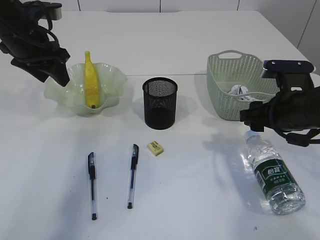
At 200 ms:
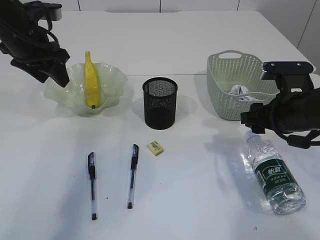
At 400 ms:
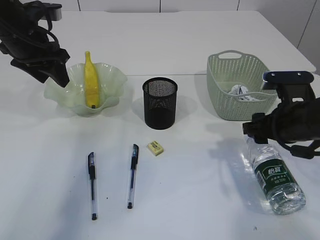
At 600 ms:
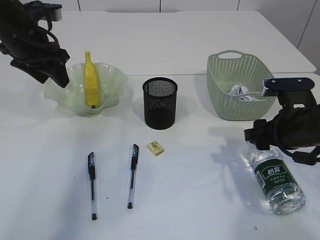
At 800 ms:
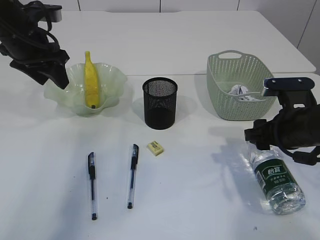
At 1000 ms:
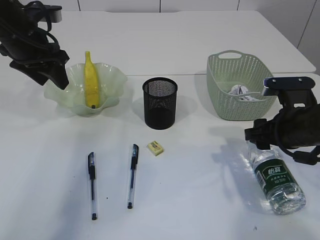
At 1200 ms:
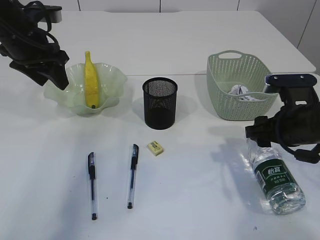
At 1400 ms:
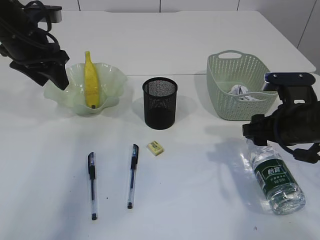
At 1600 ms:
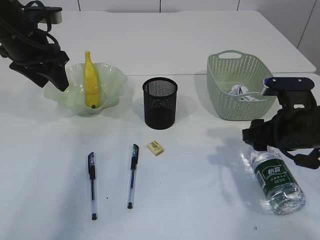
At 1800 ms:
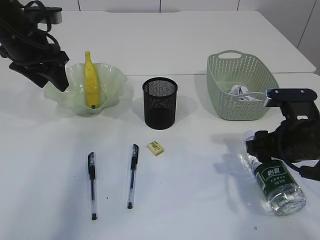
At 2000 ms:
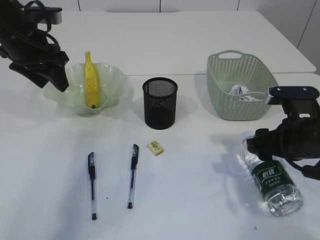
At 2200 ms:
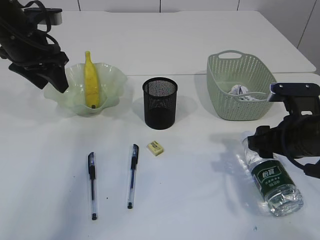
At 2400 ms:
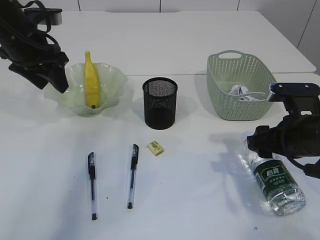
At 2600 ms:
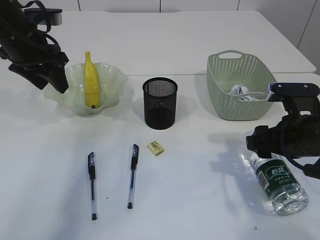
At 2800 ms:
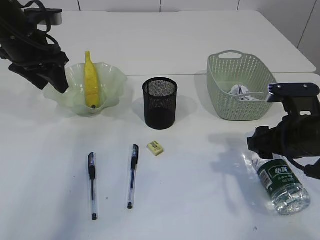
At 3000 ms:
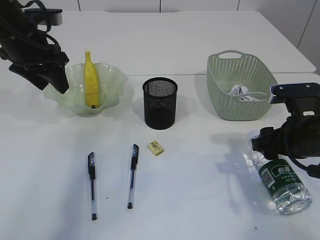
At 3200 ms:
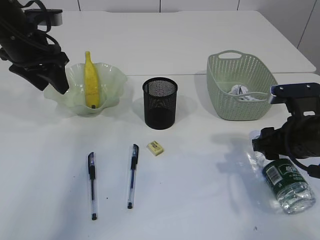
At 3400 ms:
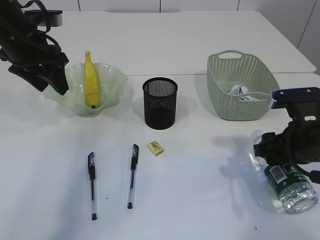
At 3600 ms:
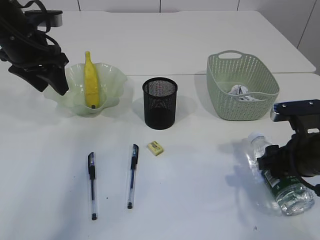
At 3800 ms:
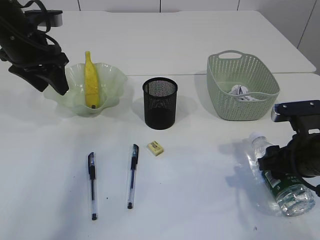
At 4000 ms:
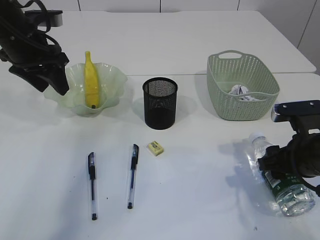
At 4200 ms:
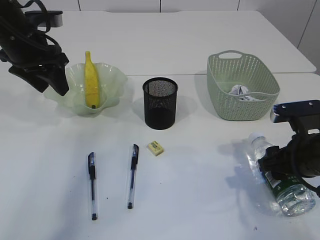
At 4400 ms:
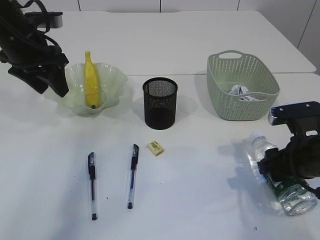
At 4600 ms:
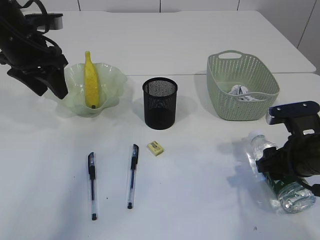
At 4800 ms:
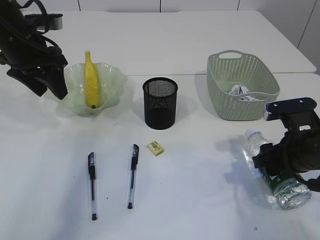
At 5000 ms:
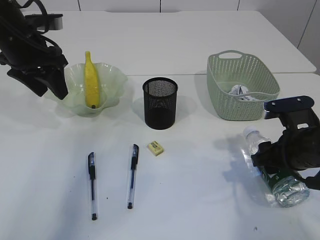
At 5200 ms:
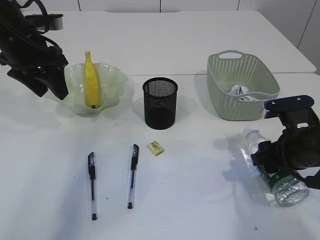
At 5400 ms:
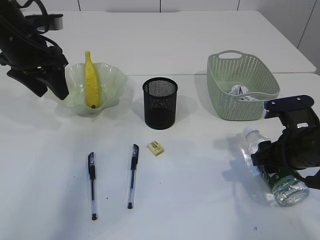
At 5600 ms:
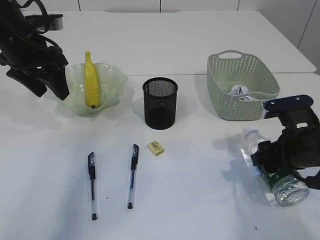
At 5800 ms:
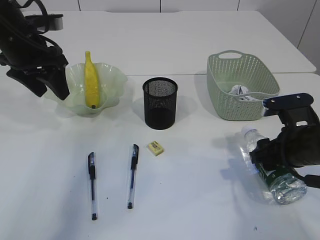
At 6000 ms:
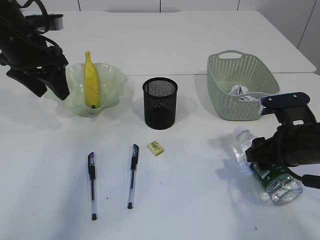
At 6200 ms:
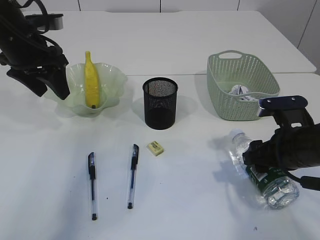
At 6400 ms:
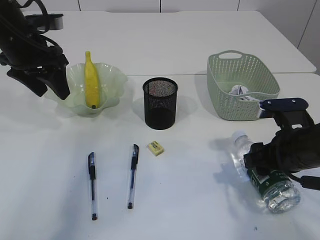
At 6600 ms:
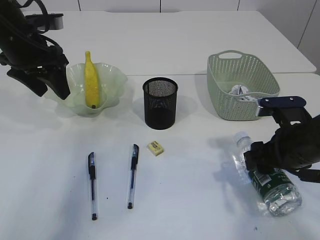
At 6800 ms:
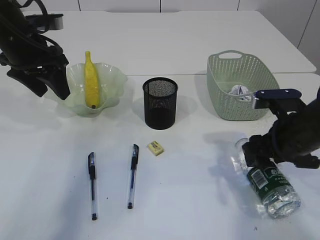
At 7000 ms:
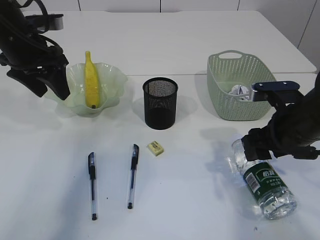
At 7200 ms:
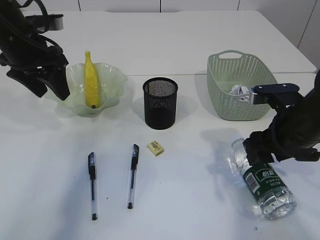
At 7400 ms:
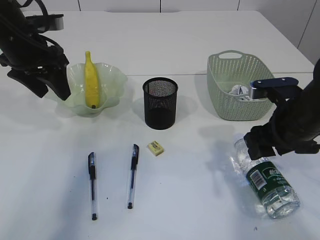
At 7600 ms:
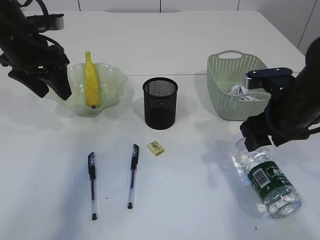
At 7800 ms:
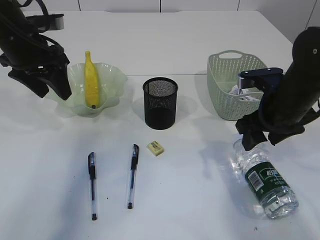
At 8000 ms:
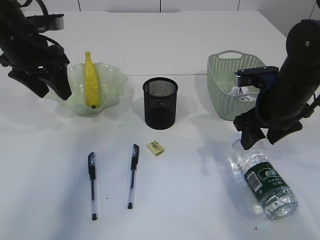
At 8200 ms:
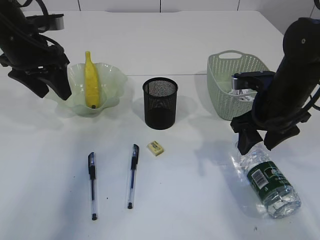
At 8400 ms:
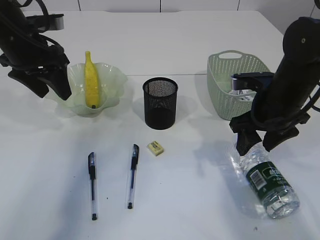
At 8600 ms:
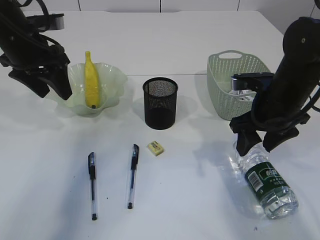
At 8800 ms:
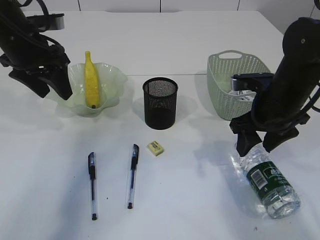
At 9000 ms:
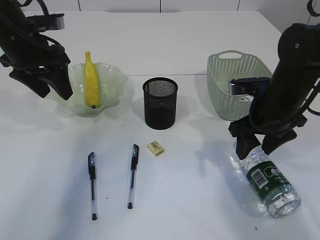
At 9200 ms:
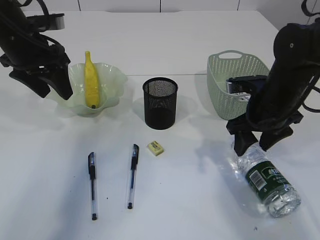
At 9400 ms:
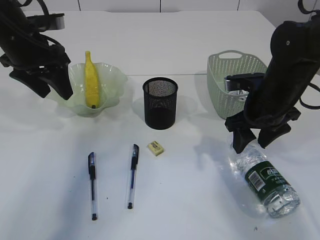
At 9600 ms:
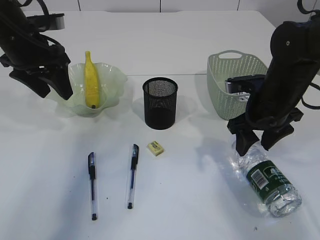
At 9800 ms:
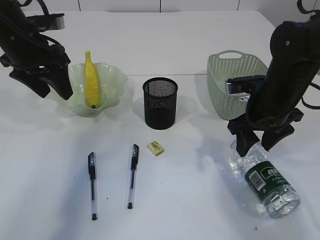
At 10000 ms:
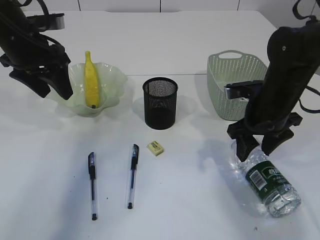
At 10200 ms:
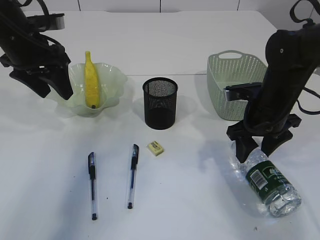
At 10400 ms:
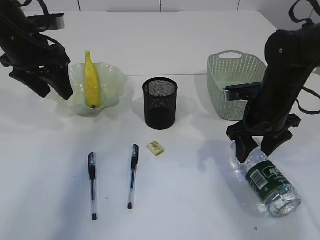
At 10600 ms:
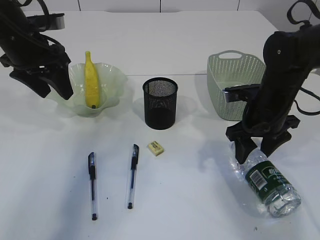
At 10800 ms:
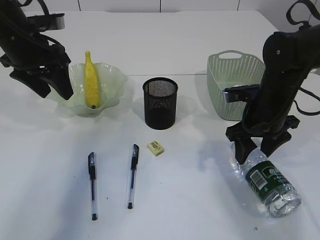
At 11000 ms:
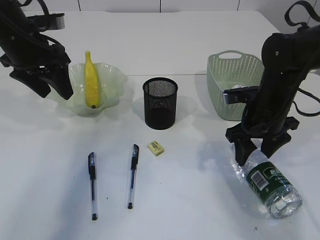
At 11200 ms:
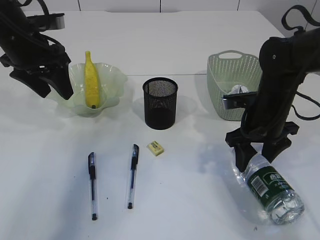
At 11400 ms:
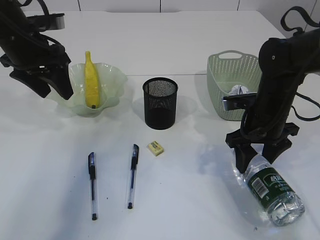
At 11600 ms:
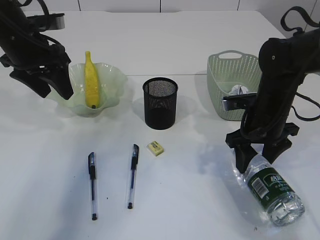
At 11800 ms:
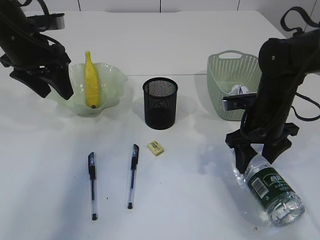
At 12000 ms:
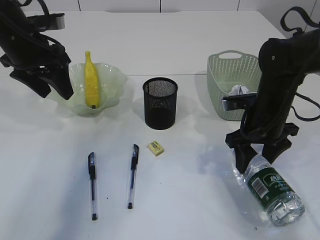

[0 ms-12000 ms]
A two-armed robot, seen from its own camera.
0 ms to 3000 ms: The grippers stay close to where they were, moving slightly.
3000 ms to 6000 ms: The grippers stay close to where they were, moving slightly.
6000 ms to 7600 ms: The right gripper shifts roughly 5 cm upward.
7600 ms to 10400 ms: The grippers make only small movements.
10400 ms to 12000 ms: There are only small adjustments of the grippers.

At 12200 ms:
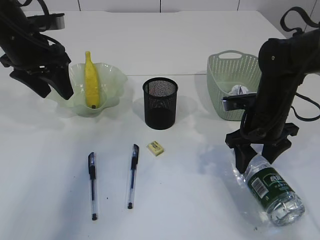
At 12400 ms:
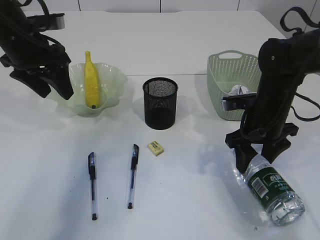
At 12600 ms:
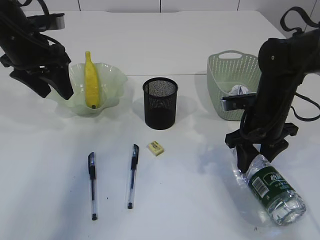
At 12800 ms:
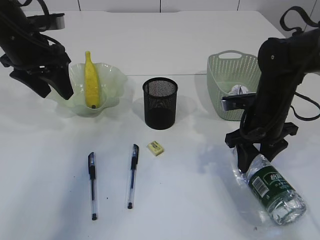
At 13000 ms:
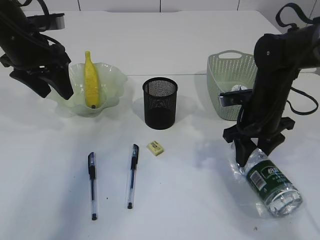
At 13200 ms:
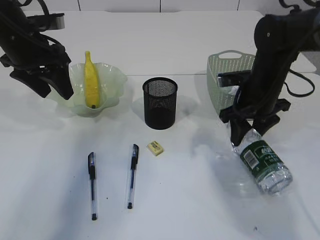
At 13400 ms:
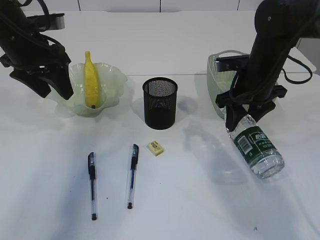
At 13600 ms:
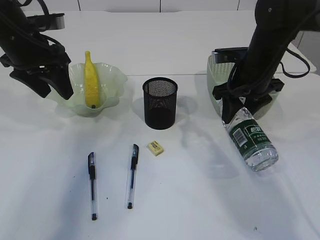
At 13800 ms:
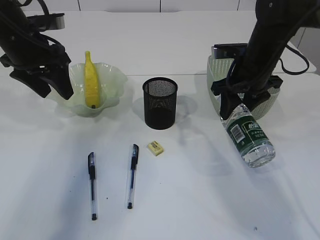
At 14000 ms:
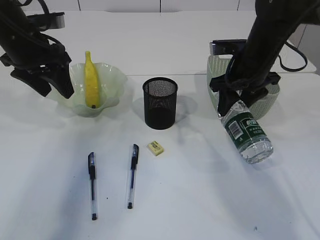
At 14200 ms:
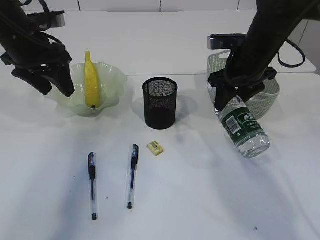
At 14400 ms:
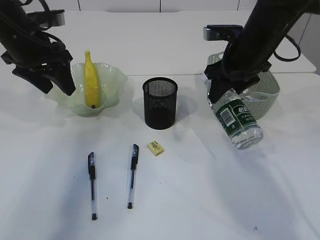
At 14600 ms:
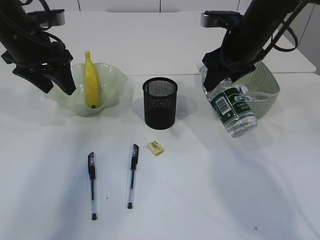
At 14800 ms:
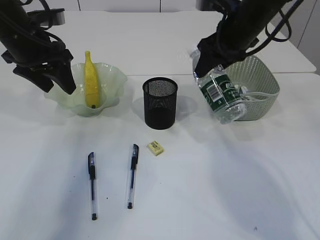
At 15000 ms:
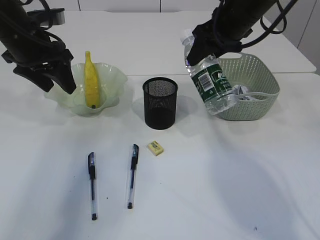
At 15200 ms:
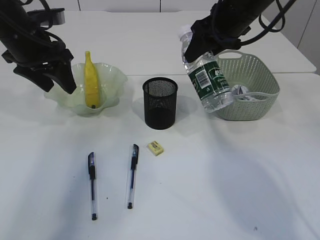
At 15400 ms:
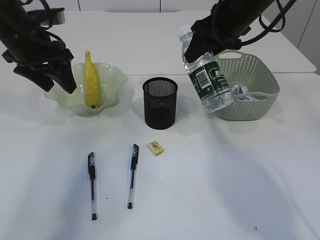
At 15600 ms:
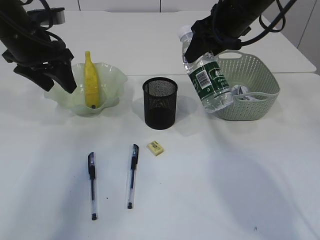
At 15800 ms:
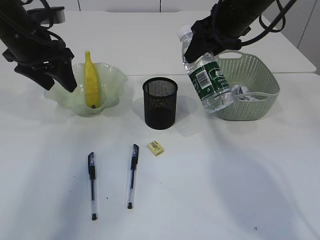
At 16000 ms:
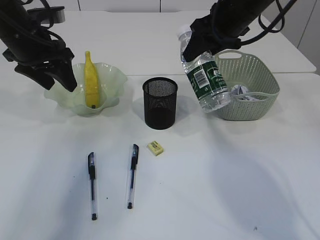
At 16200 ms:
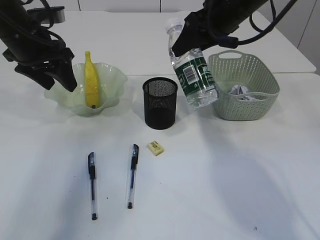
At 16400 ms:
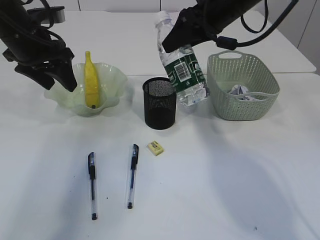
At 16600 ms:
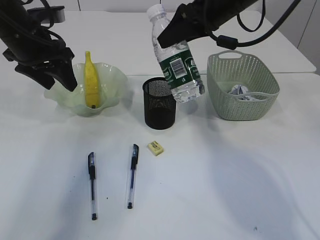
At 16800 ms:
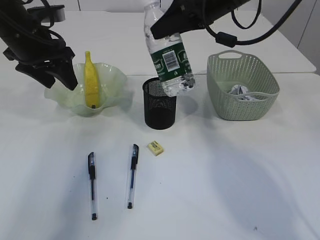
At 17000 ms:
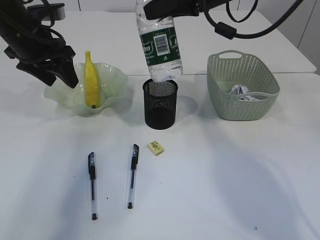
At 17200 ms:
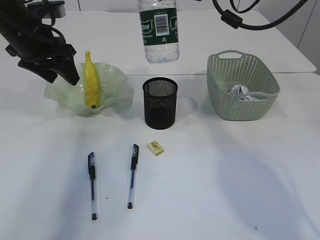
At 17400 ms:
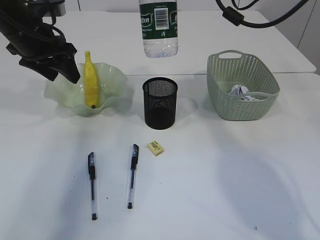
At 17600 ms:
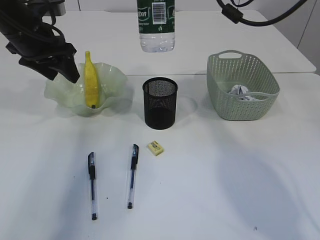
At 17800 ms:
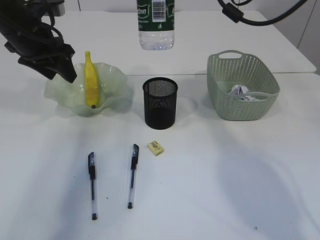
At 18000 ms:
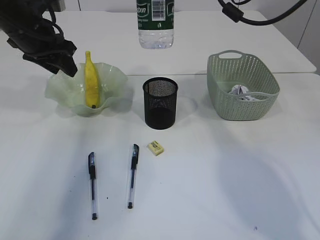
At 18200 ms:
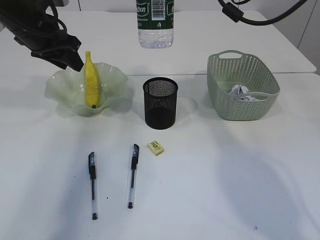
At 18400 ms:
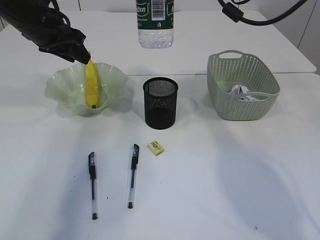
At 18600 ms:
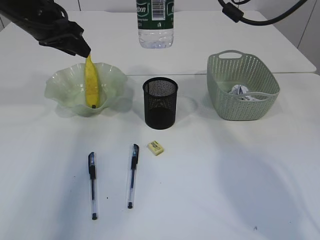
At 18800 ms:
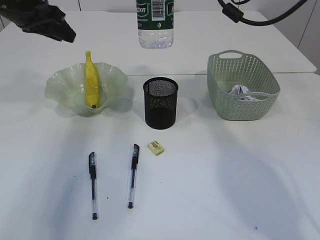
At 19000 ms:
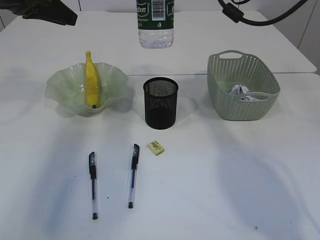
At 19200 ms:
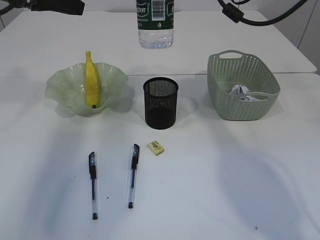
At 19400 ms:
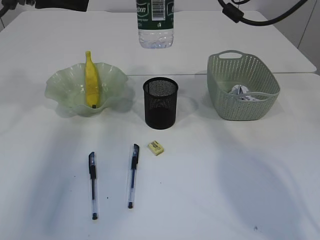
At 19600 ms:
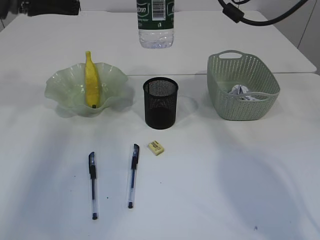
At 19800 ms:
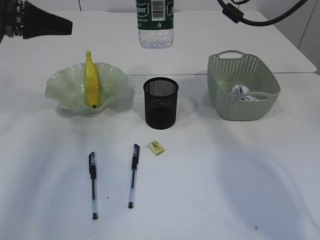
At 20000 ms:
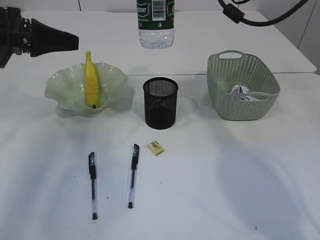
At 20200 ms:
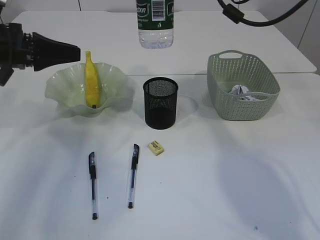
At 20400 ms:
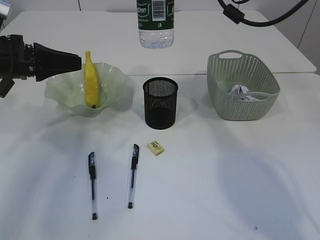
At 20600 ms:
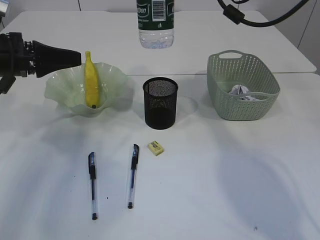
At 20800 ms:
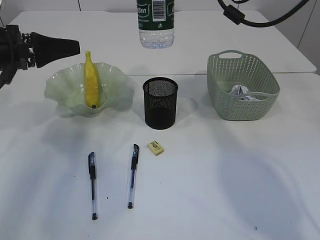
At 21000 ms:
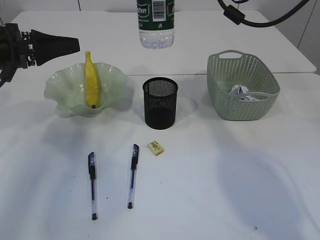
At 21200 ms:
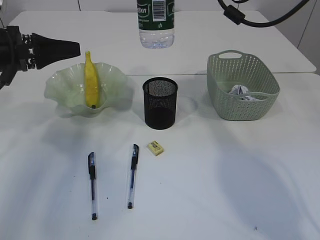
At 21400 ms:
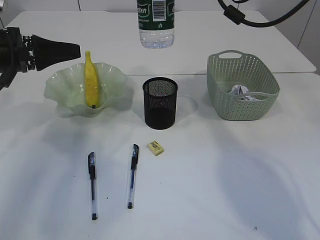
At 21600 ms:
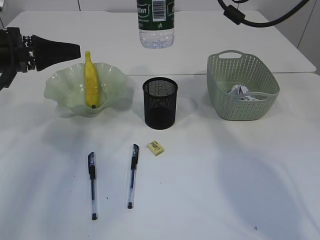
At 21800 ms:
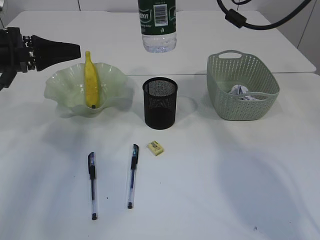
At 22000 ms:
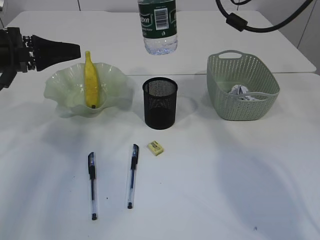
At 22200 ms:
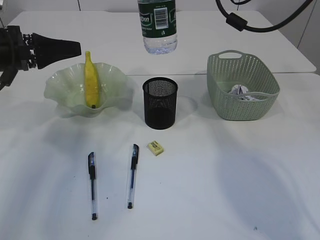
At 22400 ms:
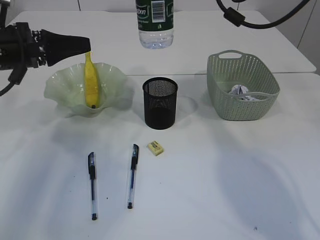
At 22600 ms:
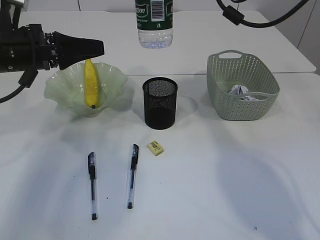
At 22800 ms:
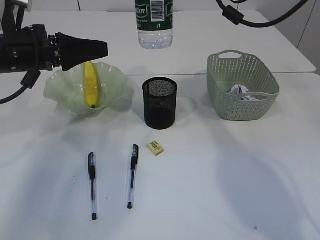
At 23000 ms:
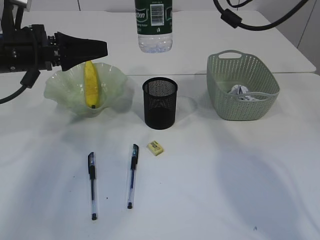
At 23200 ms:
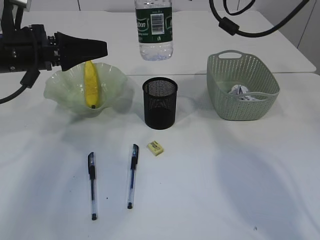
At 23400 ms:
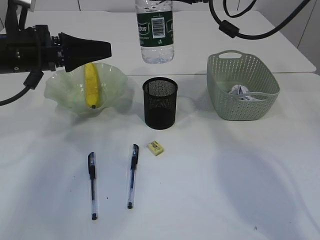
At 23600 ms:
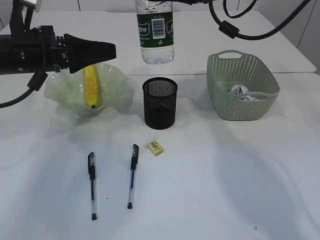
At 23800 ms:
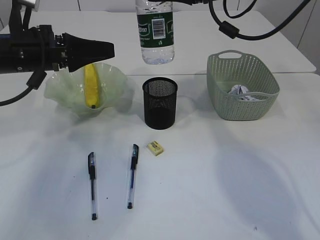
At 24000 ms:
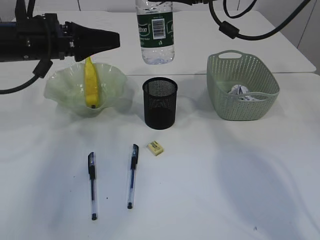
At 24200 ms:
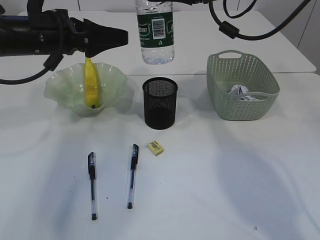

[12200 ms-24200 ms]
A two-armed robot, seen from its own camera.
Step, 12200 ms to 14200 ms: Pick up the bottle with the right arm.
12200 ms to 13800 ms: The right gripper heads upward and forward, covering approximately 10 cm.
13800 ms to 15200 ms: The right gripper moves upward, some 10 cm.
18200 ms to 19800 ms: The left gripper moves to the left, roughly 5 cm, and travels upward and back again, roughly 10 cm each way.
19800 ms to 21200 ms: The left gripper is displaced downward by about 5 cm.
21200 ms to 22600 ms: The grippers make only small movements.
22600 ms to 24200 ms: The grippers move only a little.
